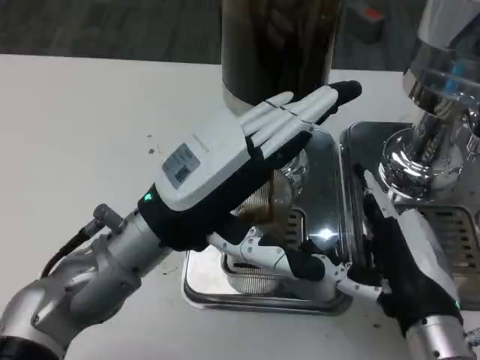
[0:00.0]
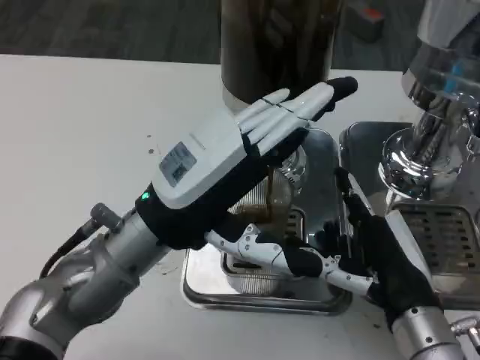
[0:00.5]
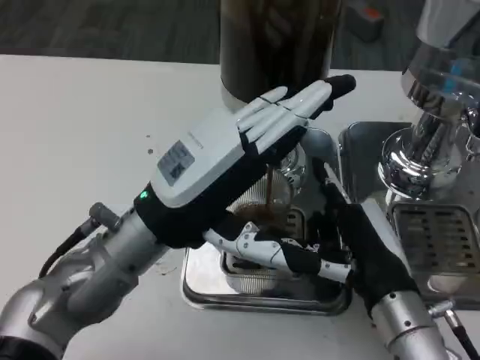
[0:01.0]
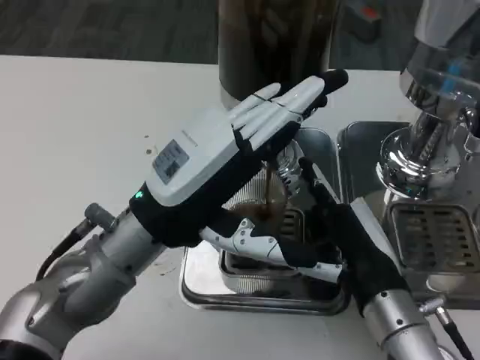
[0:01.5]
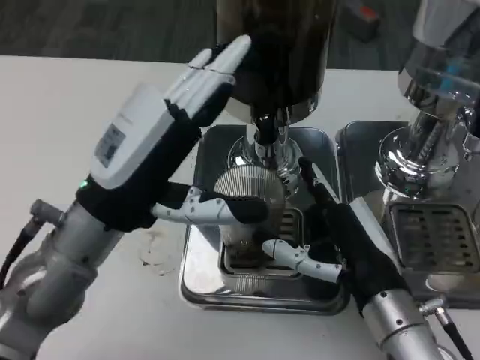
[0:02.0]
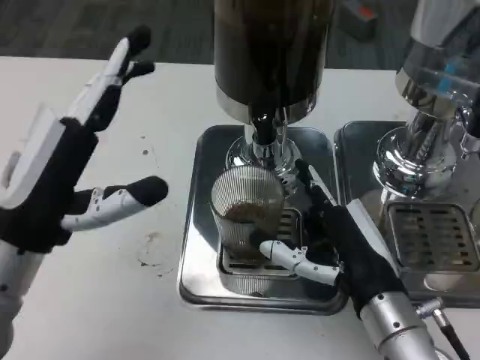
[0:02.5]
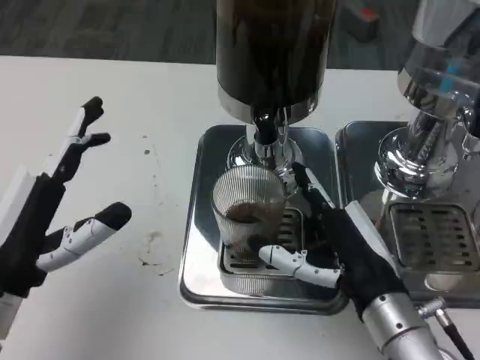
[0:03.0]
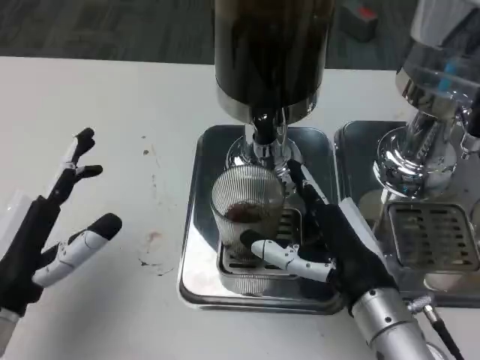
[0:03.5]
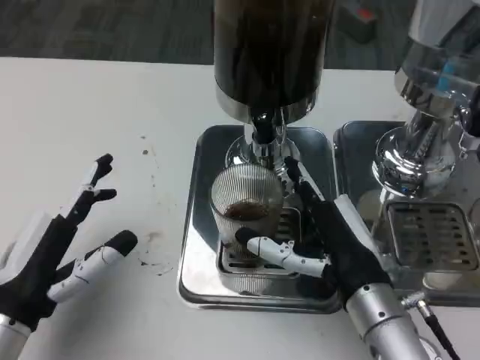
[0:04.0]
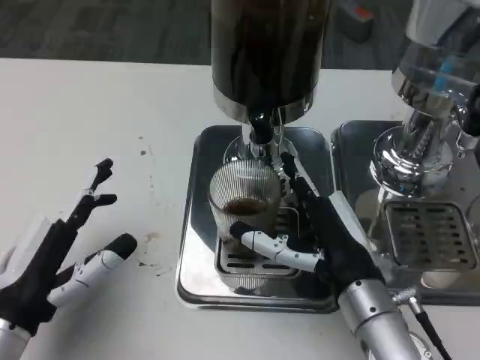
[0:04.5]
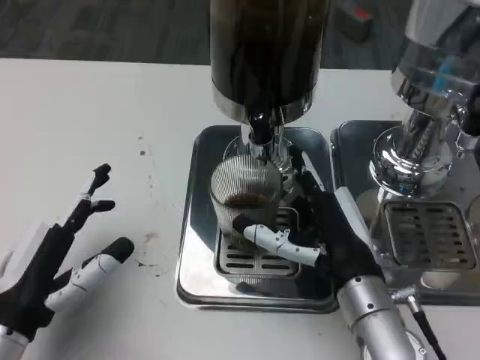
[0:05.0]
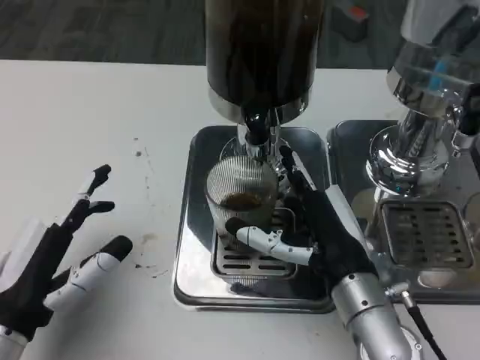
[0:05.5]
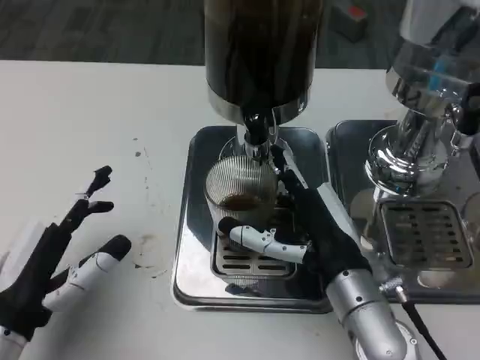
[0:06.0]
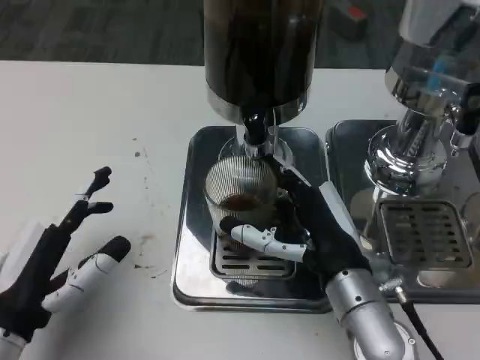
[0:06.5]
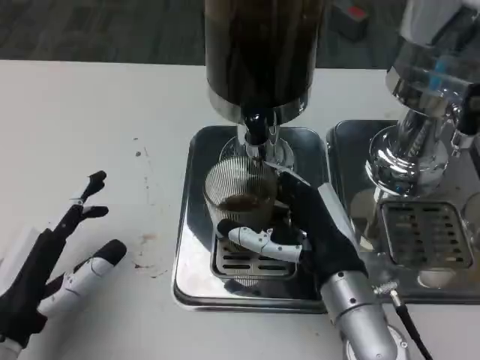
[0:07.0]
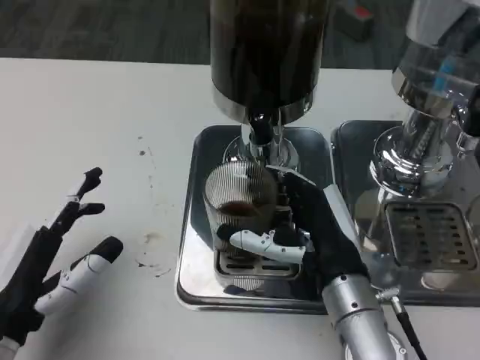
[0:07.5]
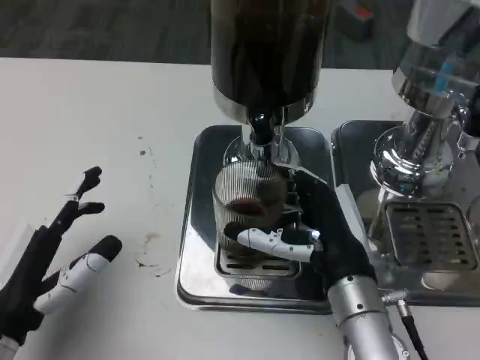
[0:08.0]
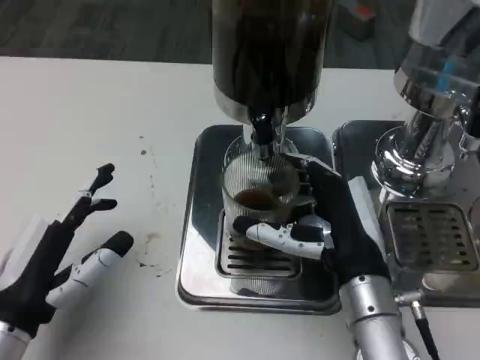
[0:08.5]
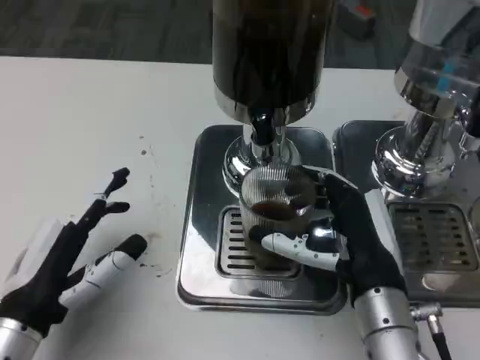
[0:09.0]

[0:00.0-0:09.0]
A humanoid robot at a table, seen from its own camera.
Task of the whole recording: Grasp the cup under the faucet to collect the drink, then remove the cup.
0:02.0 to 0:04.5: The left hand is displaced to the left, downward and backward by some 15 cm.

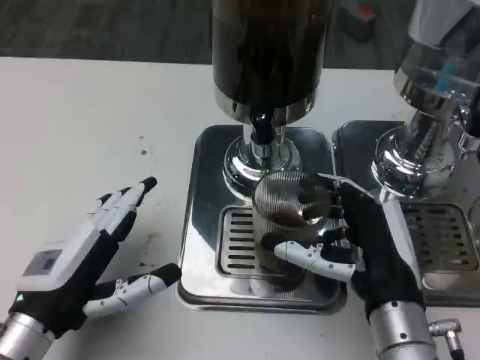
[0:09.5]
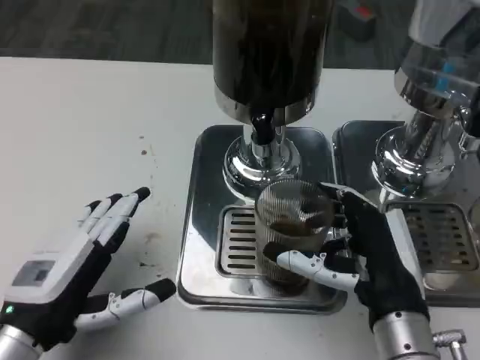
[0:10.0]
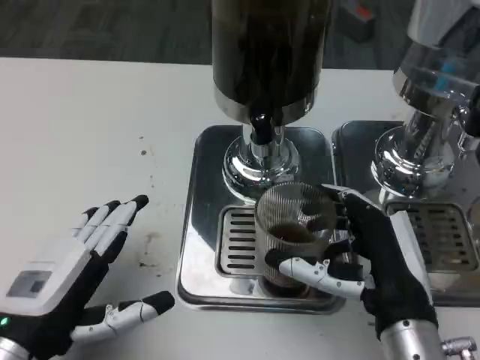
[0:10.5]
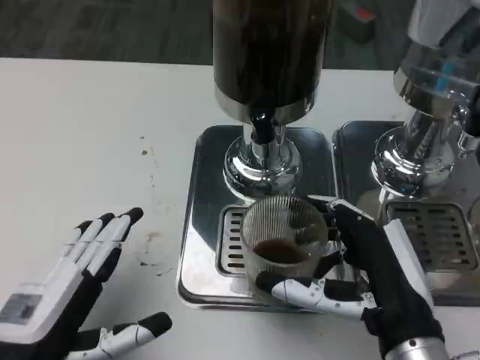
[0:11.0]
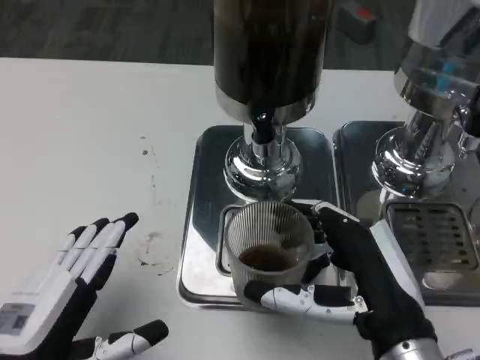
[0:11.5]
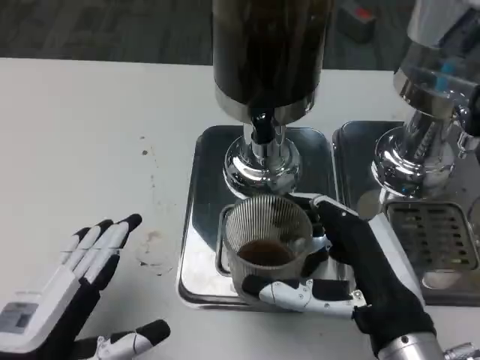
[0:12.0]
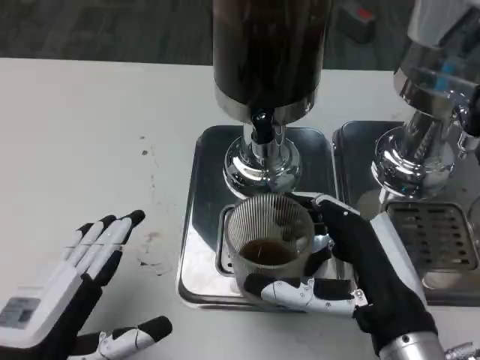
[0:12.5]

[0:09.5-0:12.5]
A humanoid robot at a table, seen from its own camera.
Task of the whole recording: Grasp the cup under the faucet to collect the drink, then remove the cup.
0:09.5 to 0:11.0: The left hand is displaced backward by approximately 5 cm.
0:11.0 to 0:12.5: Both hands stay about where they are.

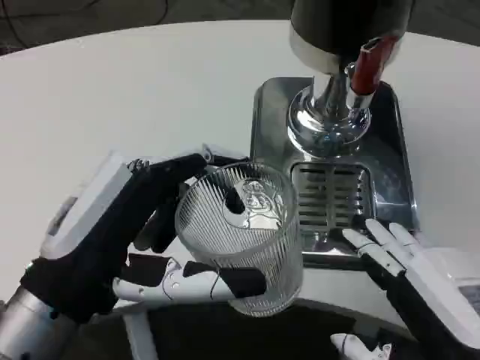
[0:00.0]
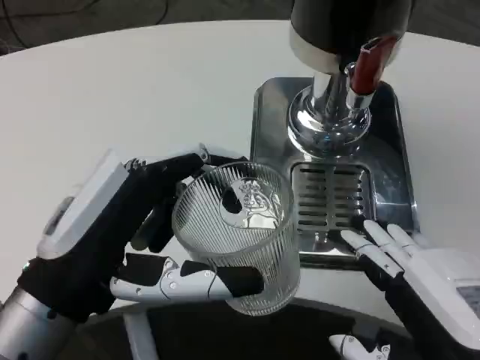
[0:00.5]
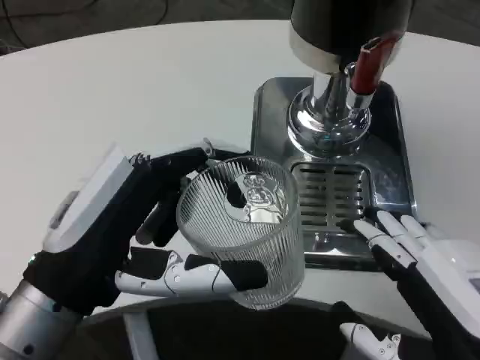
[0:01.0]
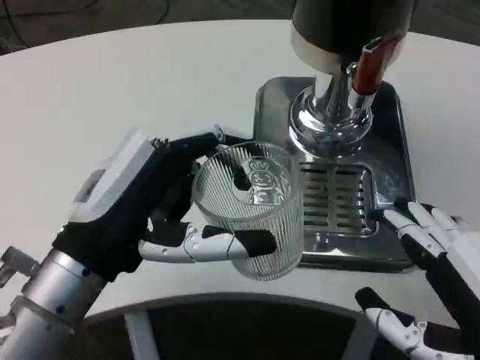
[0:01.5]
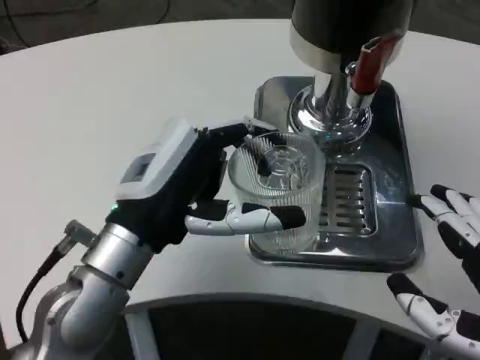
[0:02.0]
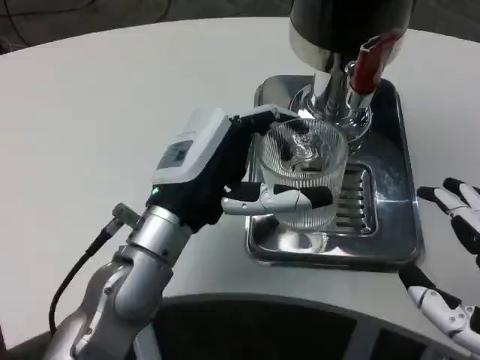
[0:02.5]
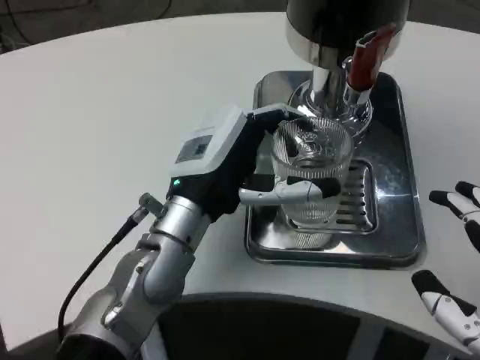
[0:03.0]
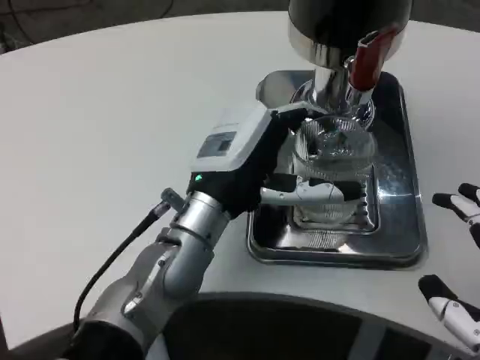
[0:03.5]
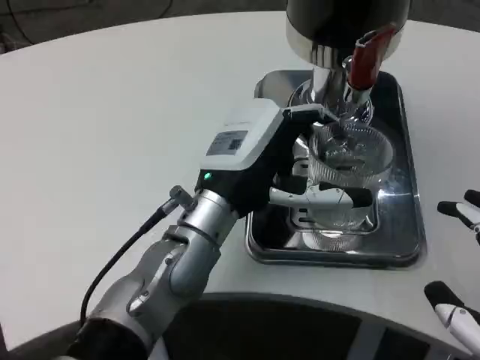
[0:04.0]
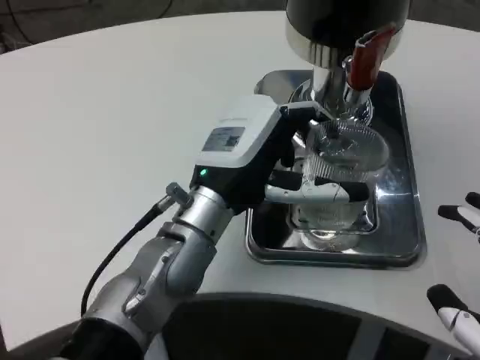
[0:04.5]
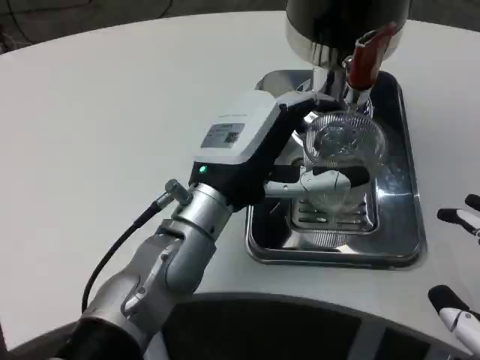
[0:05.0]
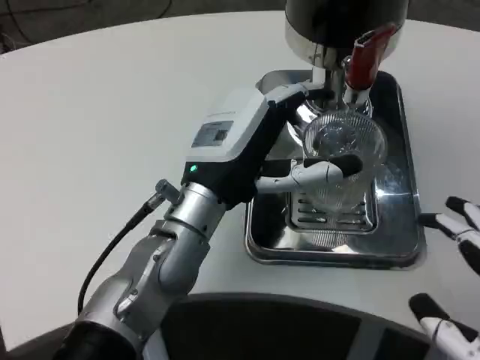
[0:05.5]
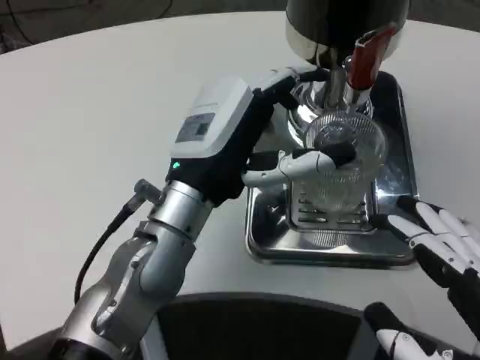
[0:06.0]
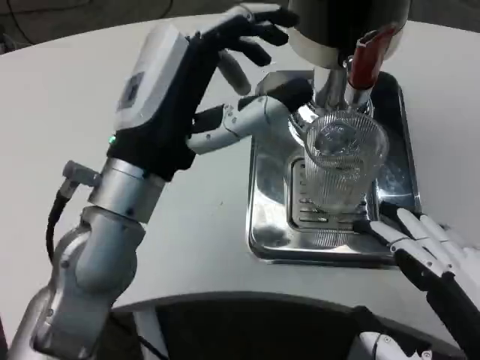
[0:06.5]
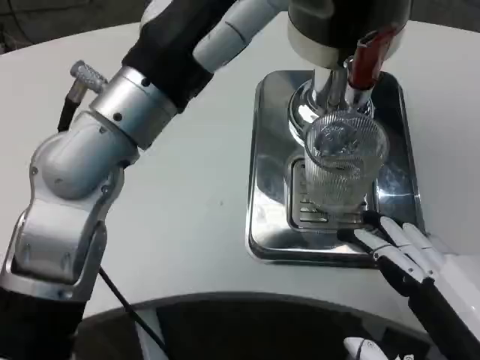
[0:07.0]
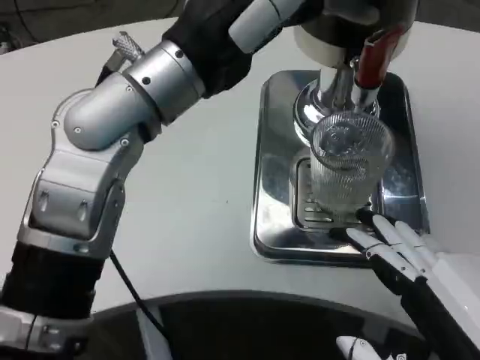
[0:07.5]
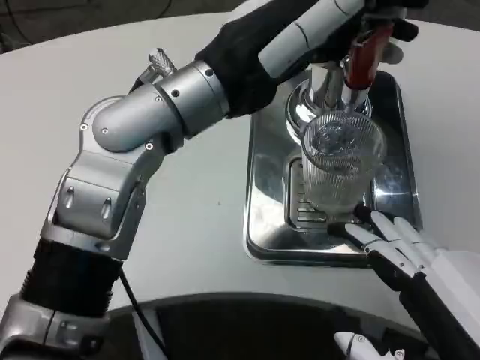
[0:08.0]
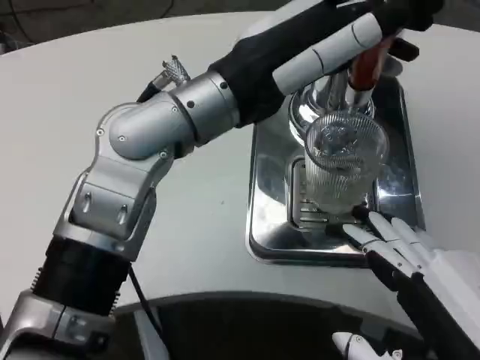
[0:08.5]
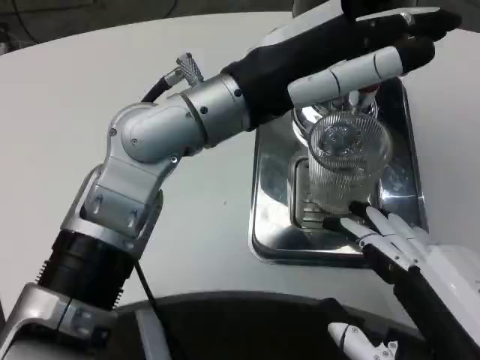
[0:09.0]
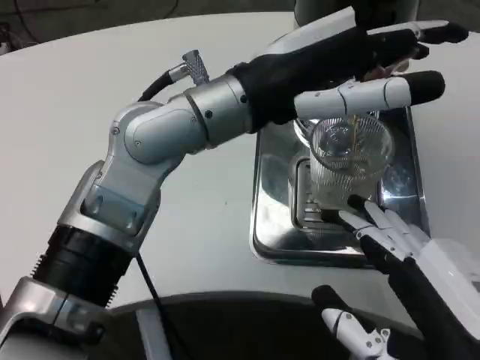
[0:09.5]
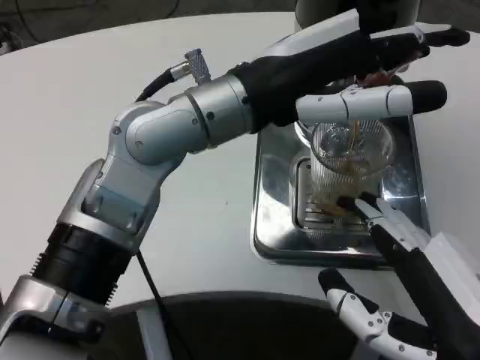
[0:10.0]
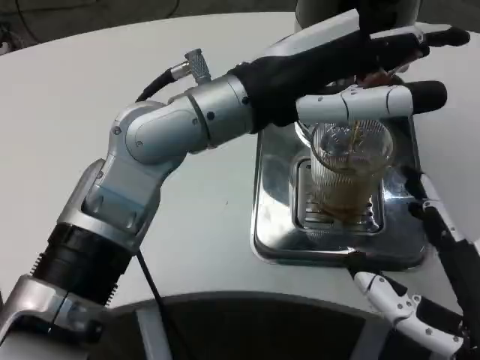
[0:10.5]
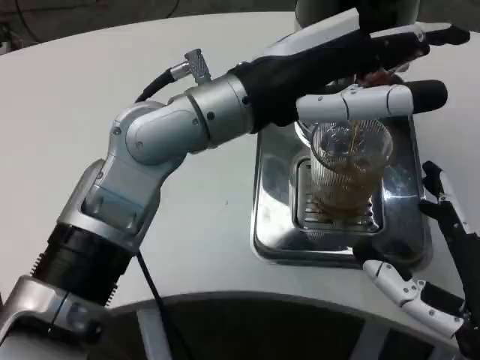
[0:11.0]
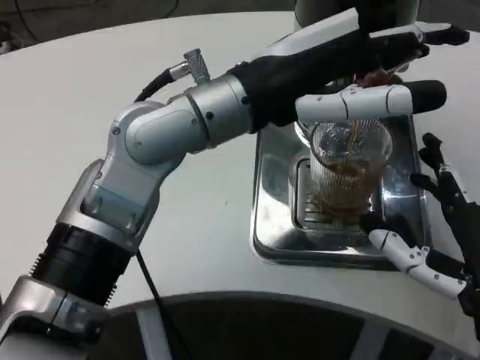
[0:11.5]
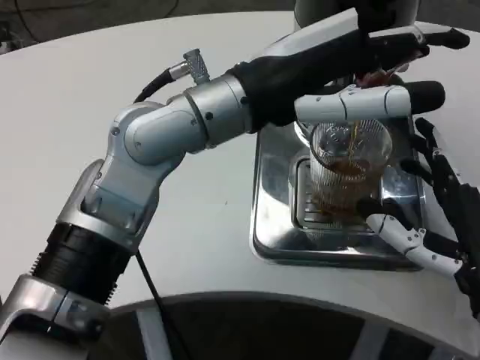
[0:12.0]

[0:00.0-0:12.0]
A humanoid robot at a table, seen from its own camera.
Task of the whole recording: Grasp the cup under the faucet to collect the drink, then remove the cup.
0:00.0 to 0:02.0: The left hand is displaced forward by roughly 10 cm.
0:02.0 to 0:04.0: The left hand moves to the right and forward, roughly 10 cm.
0:06.0 to 0:08.0: The left hand shifts about 10 cm upward.
0:10.0 to 0:12.0: The right hand moves forward, about 10 cm.

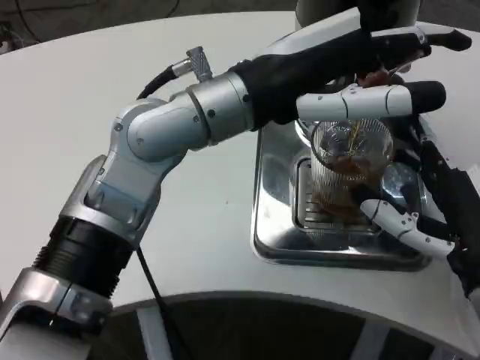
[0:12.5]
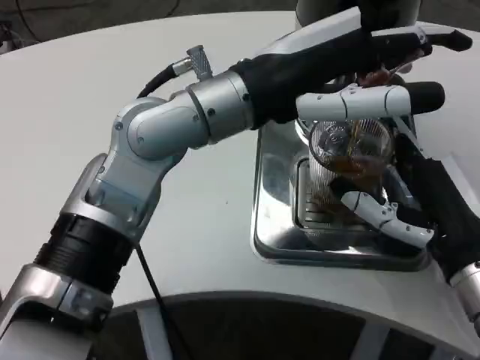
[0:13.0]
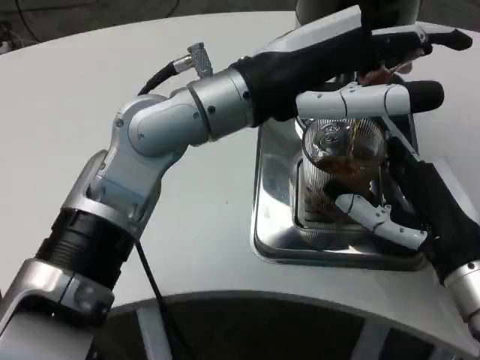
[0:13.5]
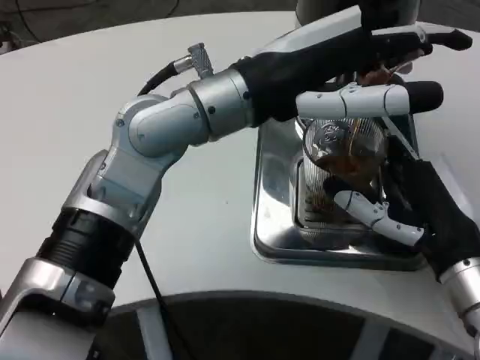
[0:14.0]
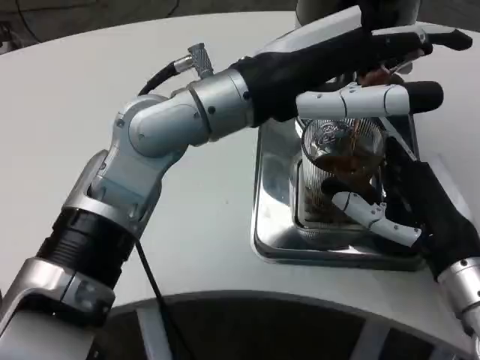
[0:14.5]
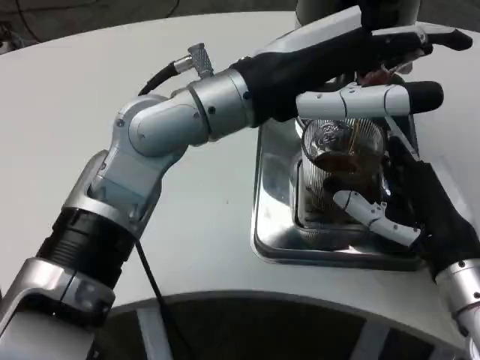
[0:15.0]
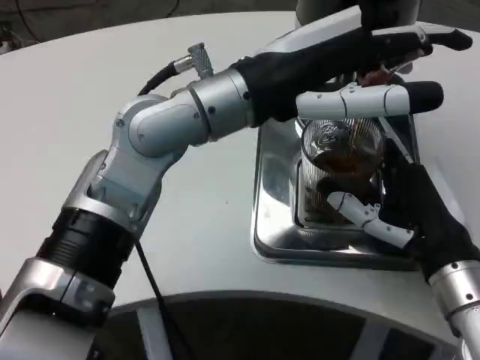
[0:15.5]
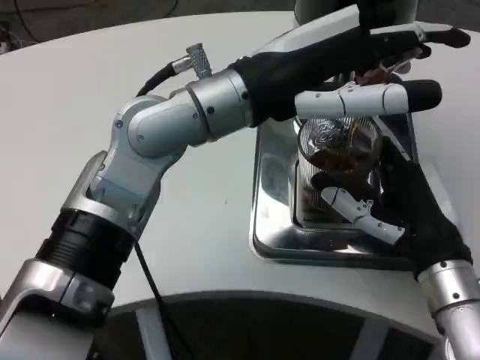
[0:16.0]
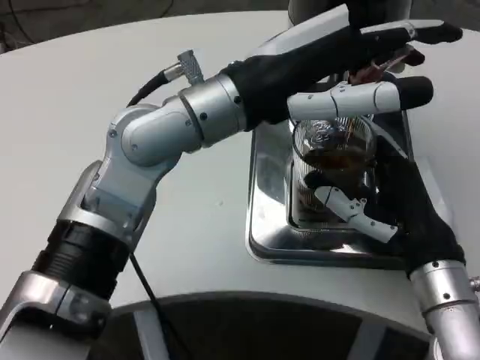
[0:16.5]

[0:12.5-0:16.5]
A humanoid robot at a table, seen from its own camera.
Task of the whole recording: Grasp the cup under the faucet to collect the drink, then remove the cup.
0:12.5 to 0:14.5: The hands move only a little.
